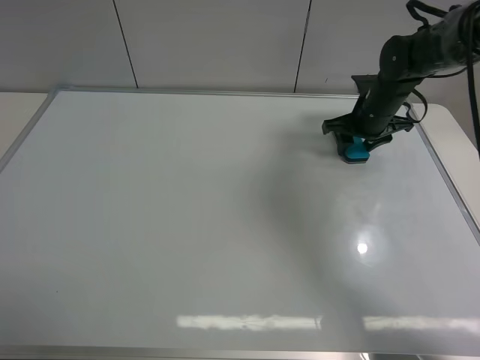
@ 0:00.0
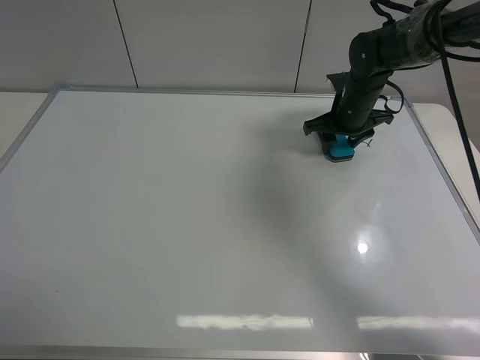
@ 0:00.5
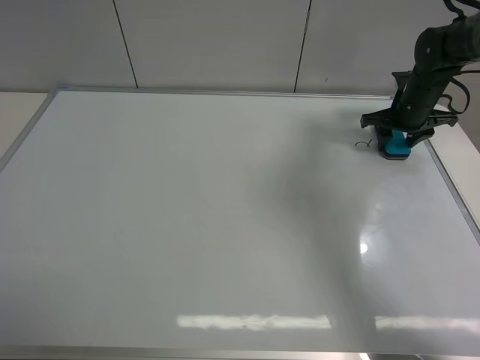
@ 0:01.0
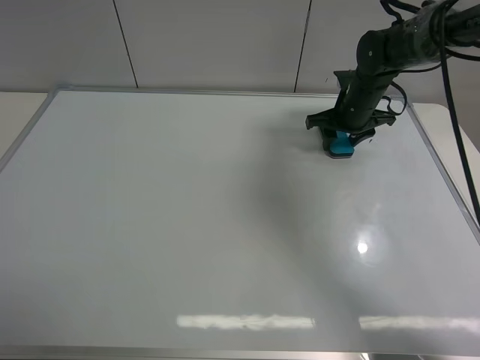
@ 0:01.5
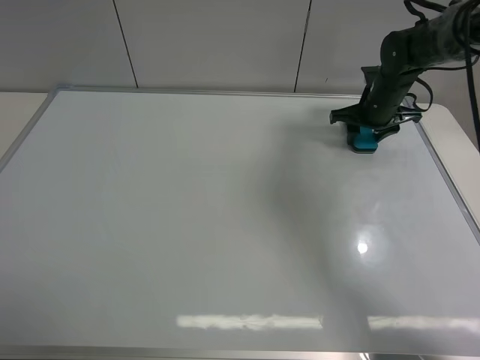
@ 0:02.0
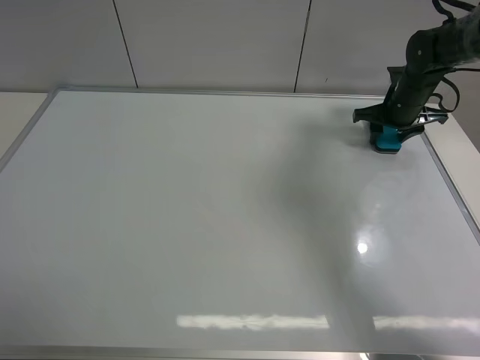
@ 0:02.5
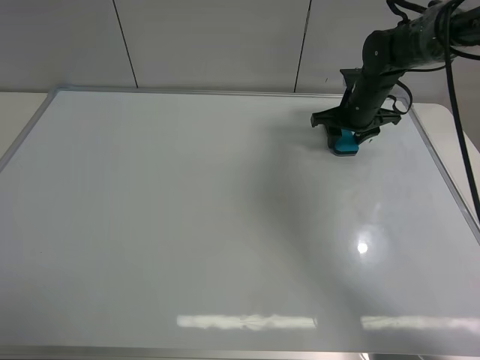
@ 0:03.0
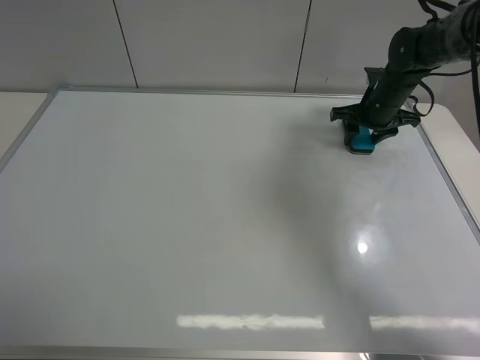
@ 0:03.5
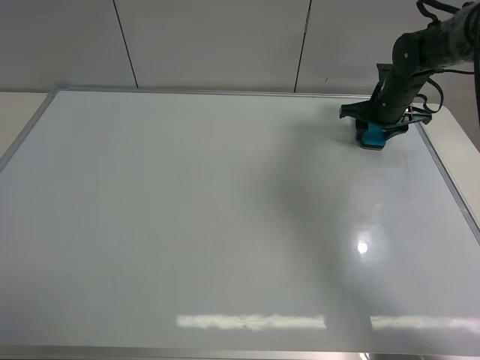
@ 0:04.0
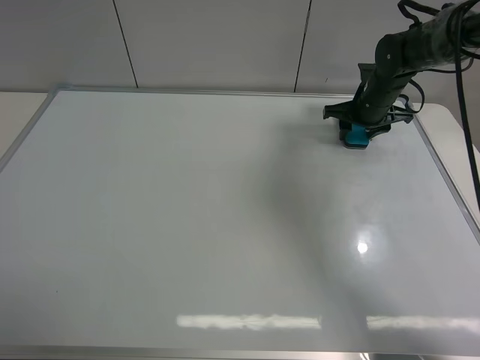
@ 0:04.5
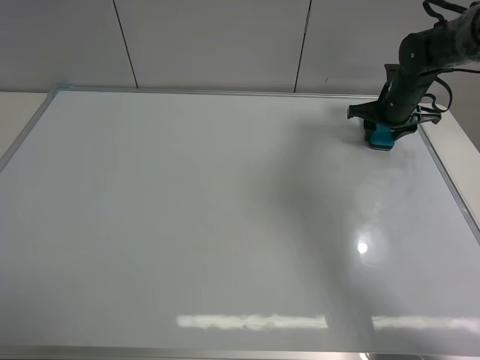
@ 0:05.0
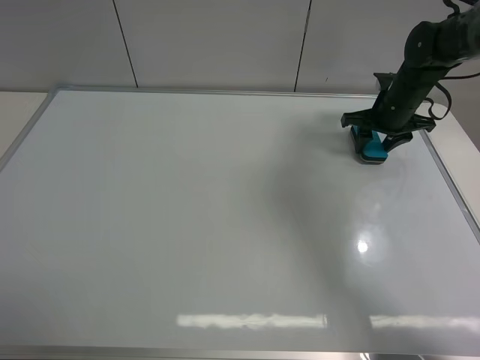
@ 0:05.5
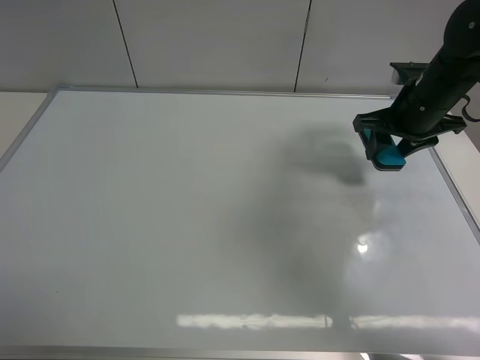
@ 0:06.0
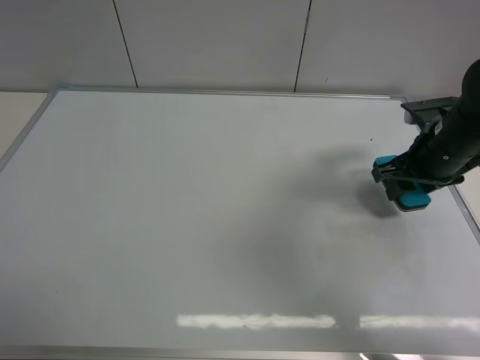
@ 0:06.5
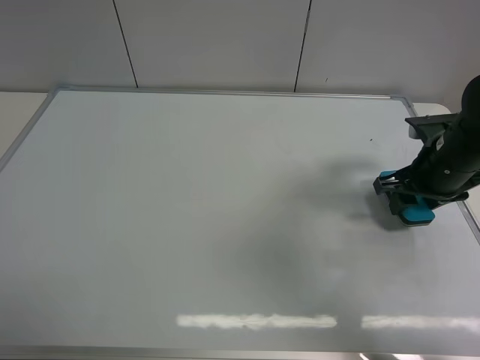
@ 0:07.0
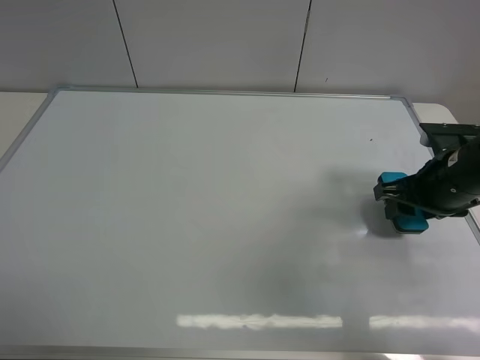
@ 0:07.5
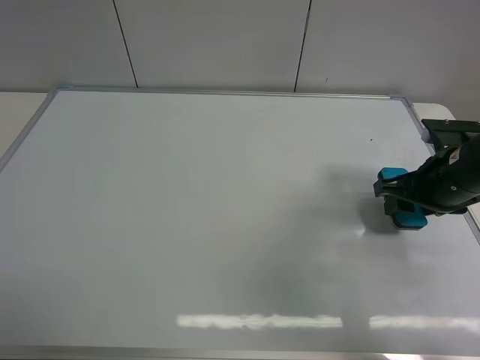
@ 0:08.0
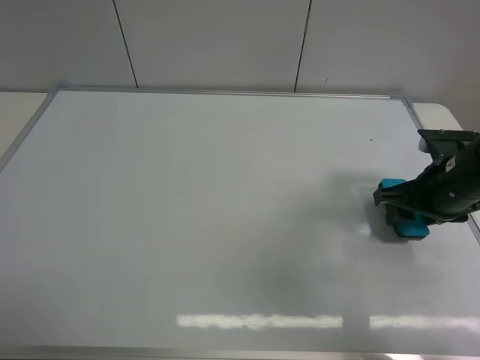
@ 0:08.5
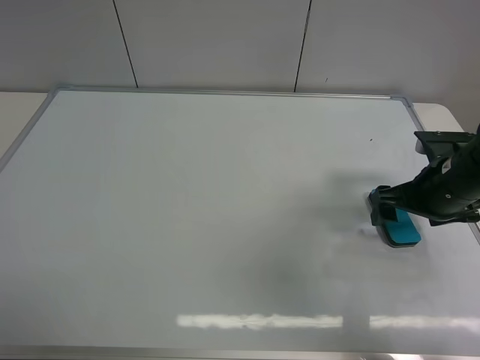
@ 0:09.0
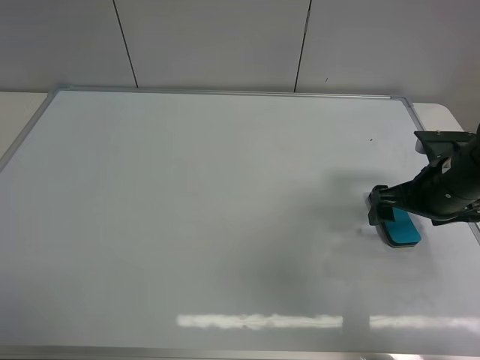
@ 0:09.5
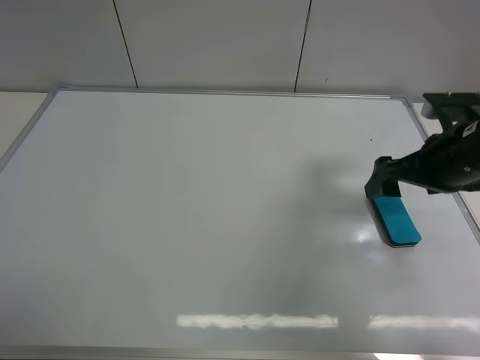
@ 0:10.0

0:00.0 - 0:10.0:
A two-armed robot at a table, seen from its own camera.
Task of the whole recording: use the left gripper to place the eraser in the right, use the right gripper to pick up the eraser, wipe the notes on the whiteboard clean, and then put it down.
Step, 0:00.0 - 0:05.0: Wipe off the writing on the board with right gripper.
Step, 0:05.5 - 0:10.0: Place the board eraser on the right side of board with right gripper.
0:00.0 - 0:02.0: The right gripper moves left and right over some 10 cm, changing direction 2 times.
0:02.0 - 0:04.0: The right gripper moves left and right over some 10 cm, changing direction 2 times.
0:04.0 - 0:06.0: The right gripper is displaced backward and upward by about 10 cm.
0:06.0 - 0:08.0: The right gripper moves backward, approximately 10 cm.
0:08.0 - 0:10.0: The right gripper opens.

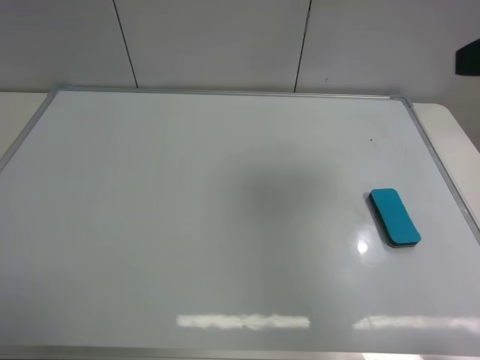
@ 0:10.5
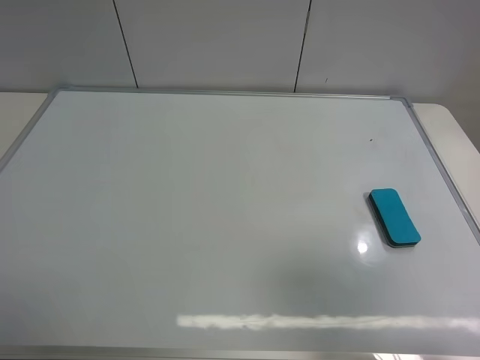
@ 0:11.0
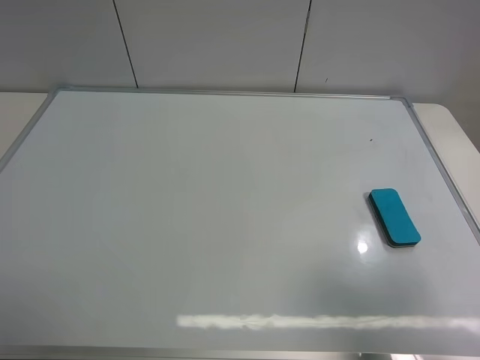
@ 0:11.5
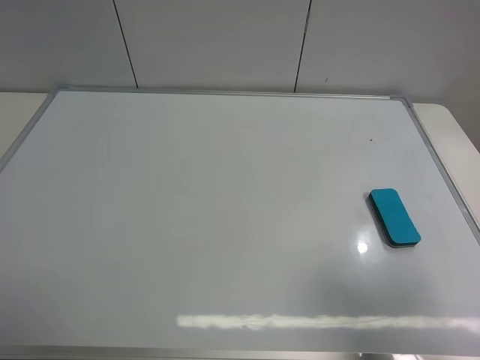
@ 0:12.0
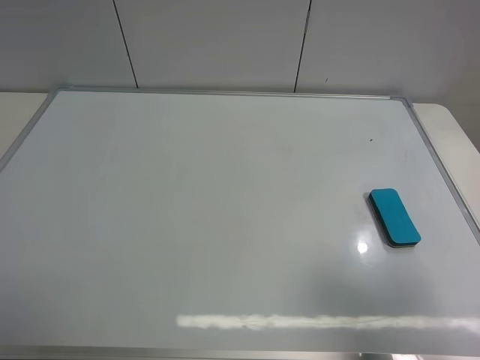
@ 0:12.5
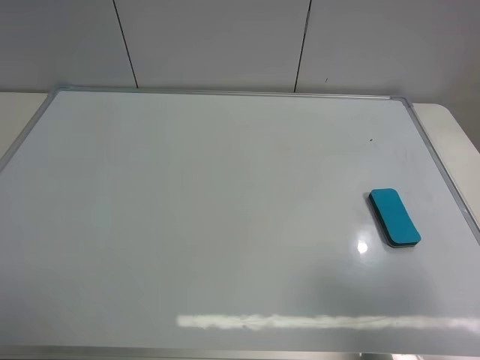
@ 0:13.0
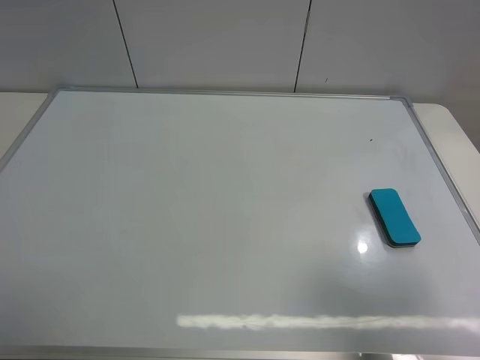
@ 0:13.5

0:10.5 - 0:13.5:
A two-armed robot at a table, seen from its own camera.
Task of the whole recording: use the left gripper to place the eraser in the right, use the right gripper to pick up the eraser, wipe the notes on the whiteboard clean, and then put it down.
0:10.5 - 0:12.0: The right gripper heads backward and downward, covering roughly 15 cm.
0:12.0 - 0:13.5: Both grippers stay put.

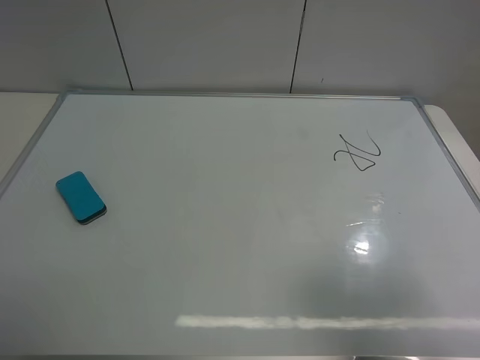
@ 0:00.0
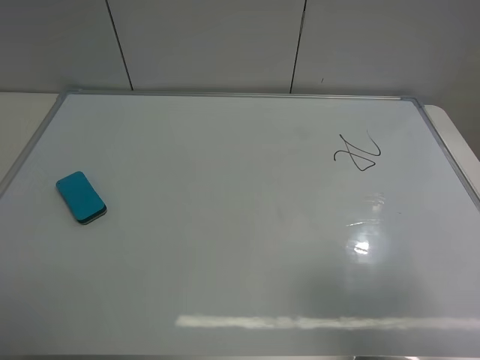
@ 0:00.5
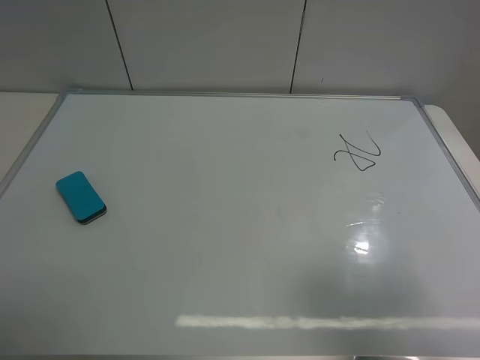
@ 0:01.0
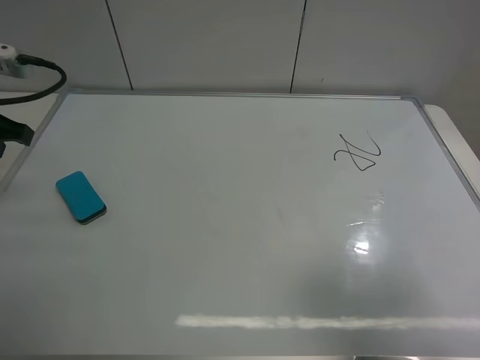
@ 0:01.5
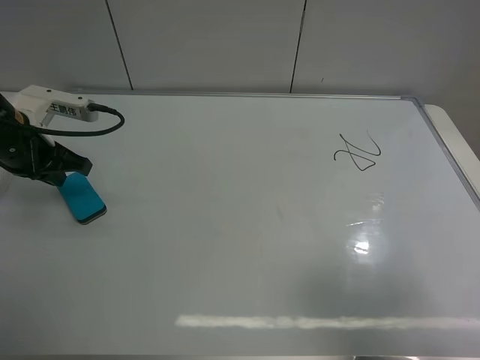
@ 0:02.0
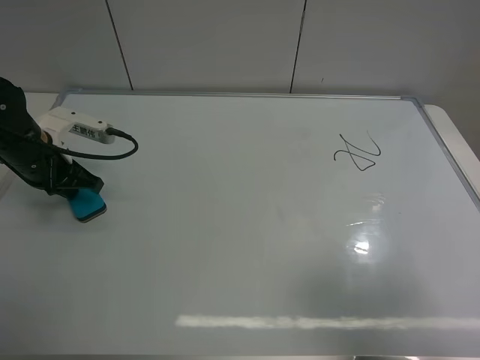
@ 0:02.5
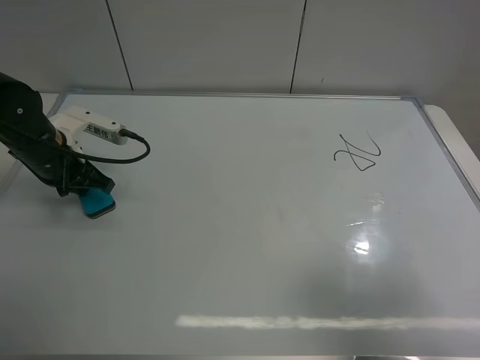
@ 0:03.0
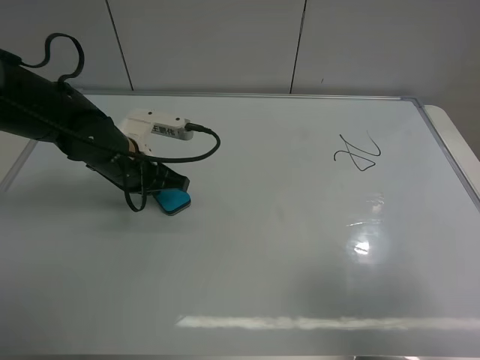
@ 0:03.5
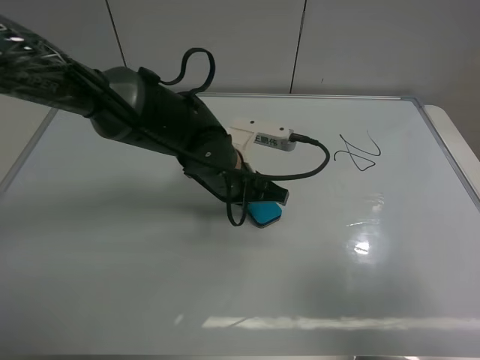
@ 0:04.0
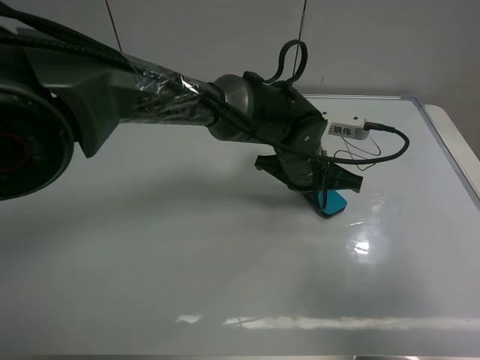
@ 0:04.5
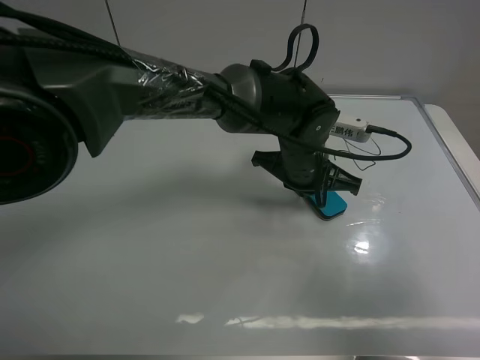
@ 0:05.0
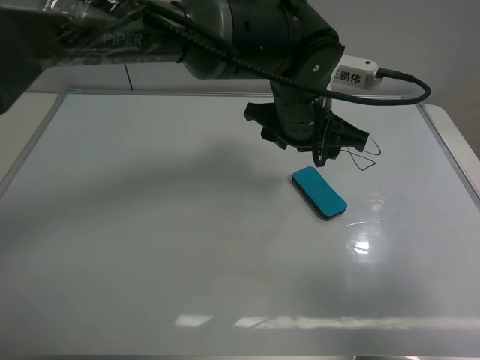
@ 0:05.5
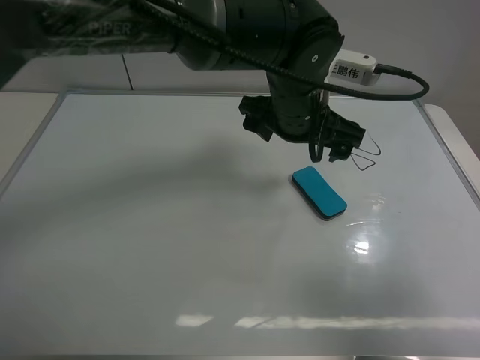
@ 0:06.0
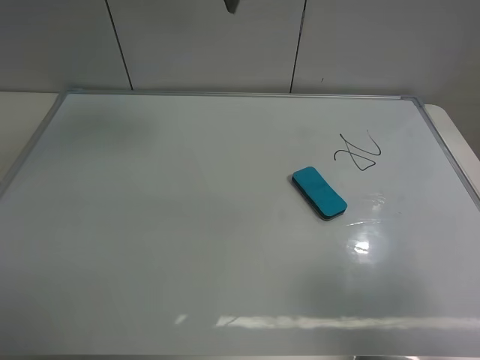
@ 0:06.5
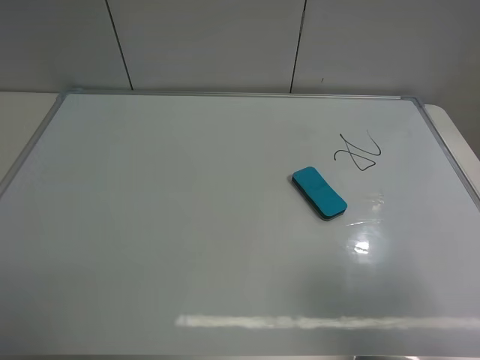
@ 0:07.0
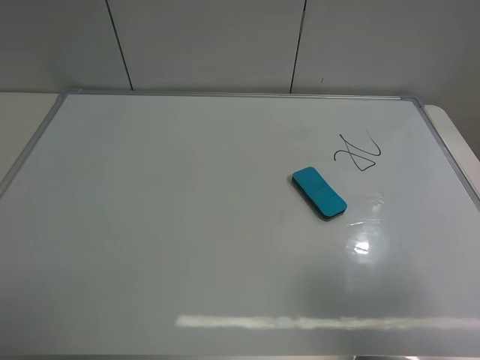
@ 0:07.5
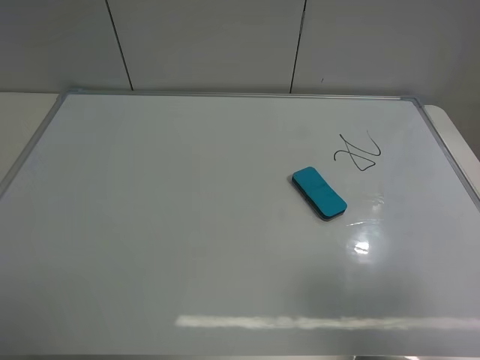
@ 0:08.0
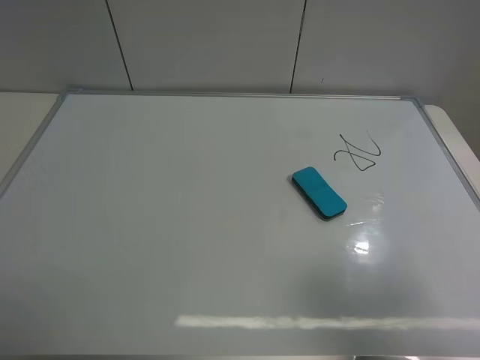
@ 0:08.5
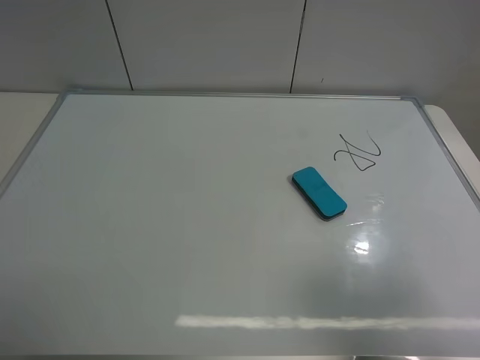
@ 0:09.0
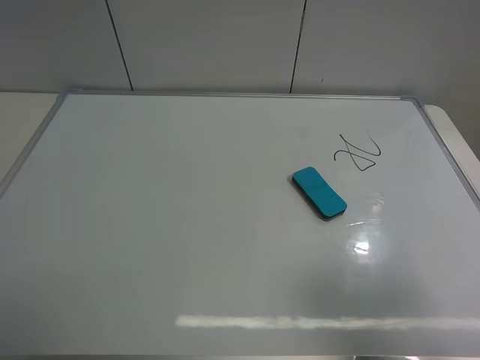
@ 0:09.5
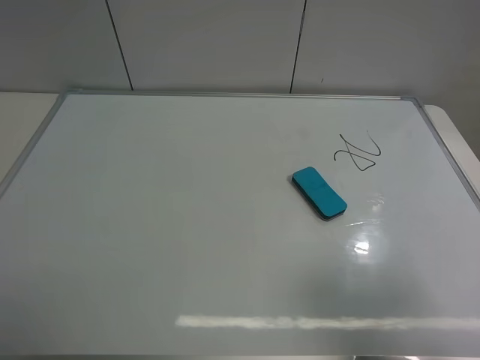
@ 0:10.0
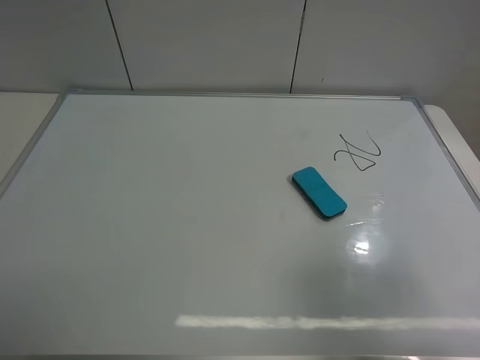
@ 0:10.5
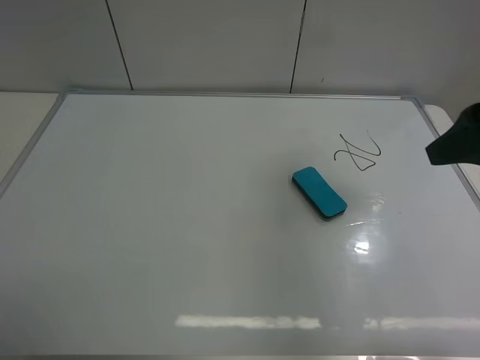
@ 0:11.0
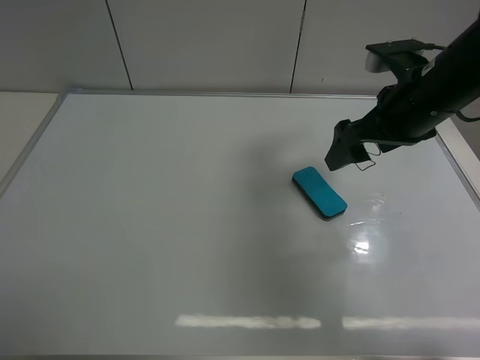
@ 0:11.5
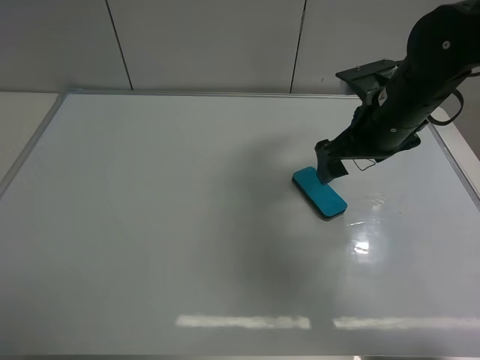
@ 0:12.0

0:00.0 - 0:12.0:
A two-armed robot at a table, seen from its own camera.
Task of the whole recording: use the left gripper to place the eraser in the right, use the right gripper to pick up the eraser, wipe the notes on the whiteboard clean, and then put it down.
Step, 0:00.0 - 0:05.0: Move the board eraser to the right of the whiteboard with left gripper.
0:00.0 - 0:02.0: The left gripper shifts roughly 30 cm forward and downward, and closes its fingers.
0:02.0 - 0:04.0: The left gripper shifts roughly 25 cm to the right.
0:04.0 - 0:06.0: The left gripper heads upward and to the right, covering roughly 15 cm, and opens its fingers.
0:06.0 - 0:08.0: The left gripper moves to the left and backward, roughly 50 cm.
0:10.0 - 0:12.0: The right gripper heads forward and to the left, covering about 30 cm.
